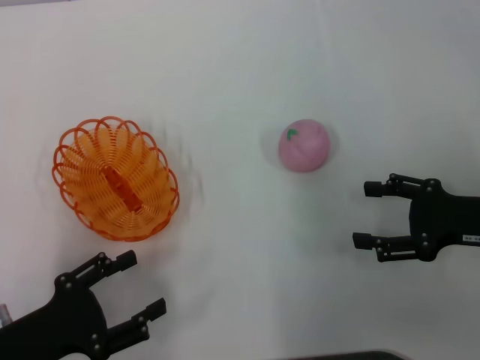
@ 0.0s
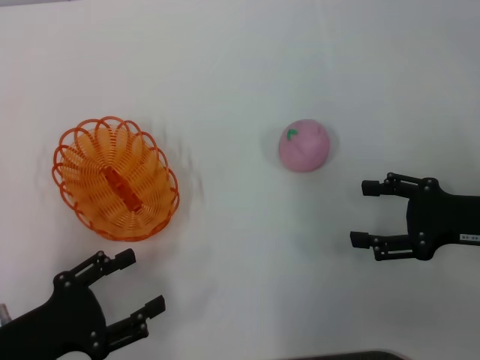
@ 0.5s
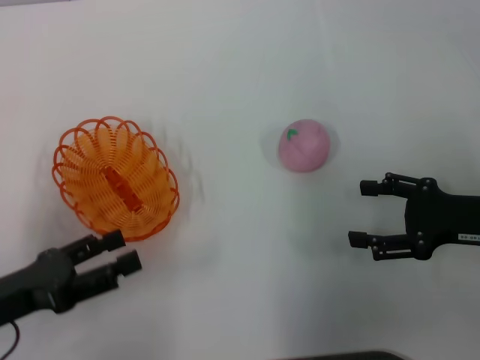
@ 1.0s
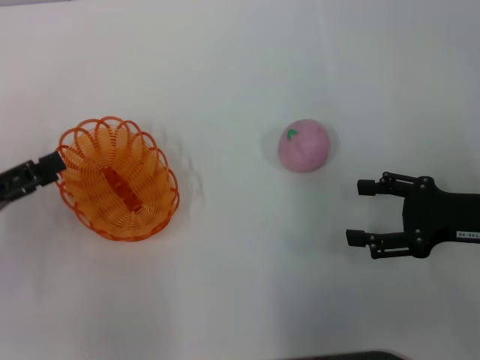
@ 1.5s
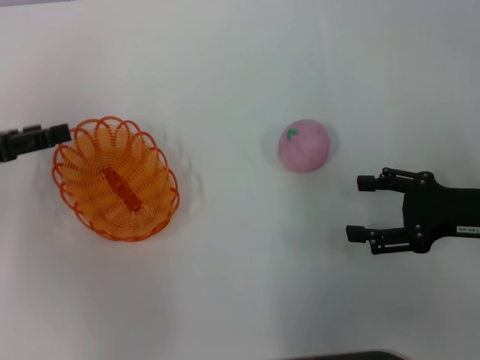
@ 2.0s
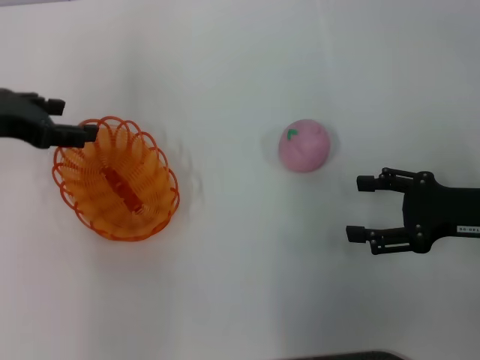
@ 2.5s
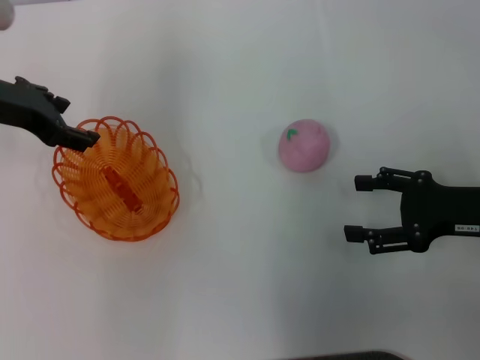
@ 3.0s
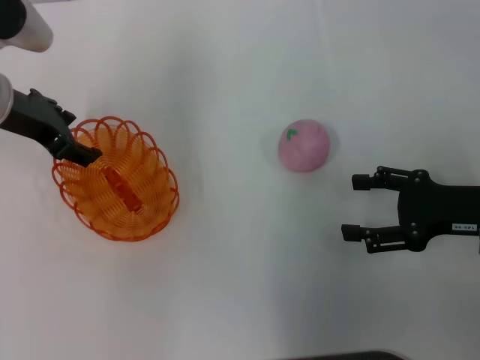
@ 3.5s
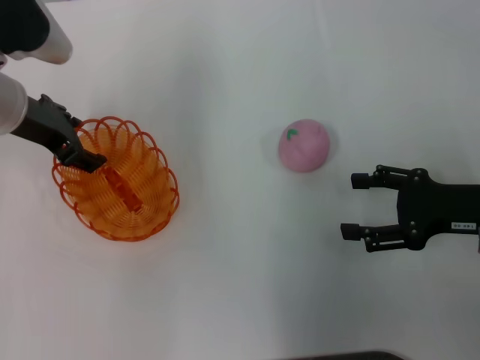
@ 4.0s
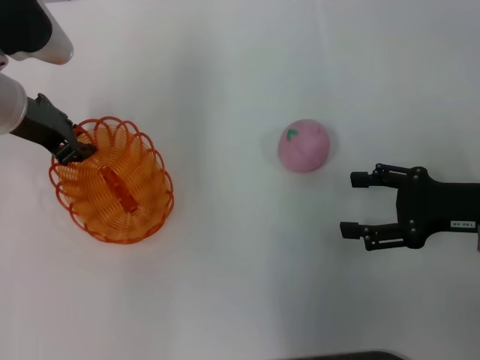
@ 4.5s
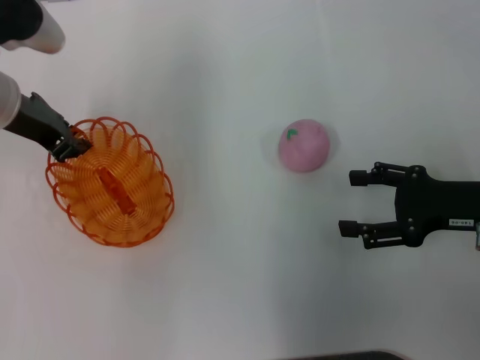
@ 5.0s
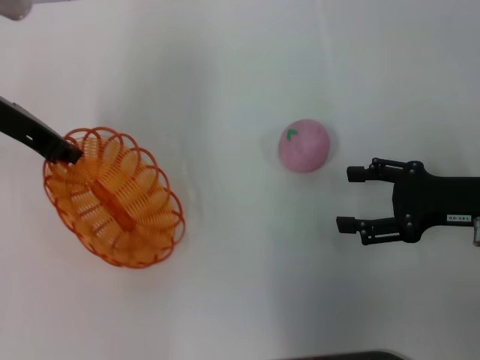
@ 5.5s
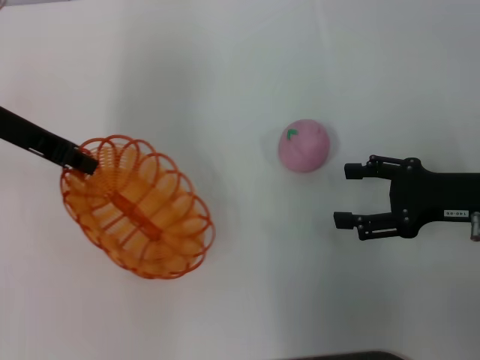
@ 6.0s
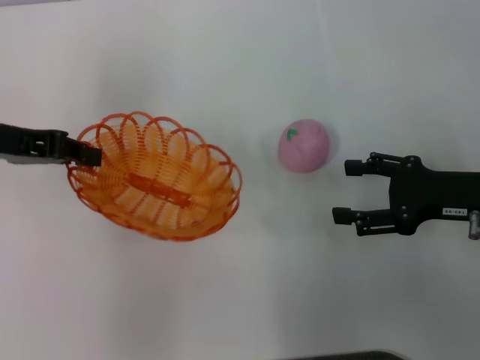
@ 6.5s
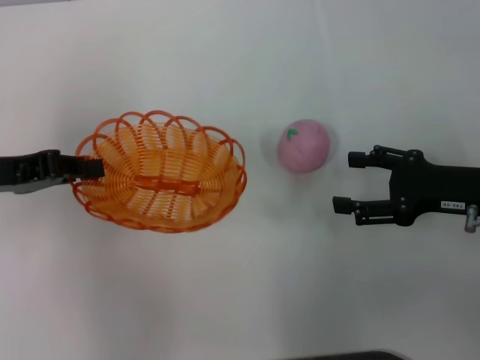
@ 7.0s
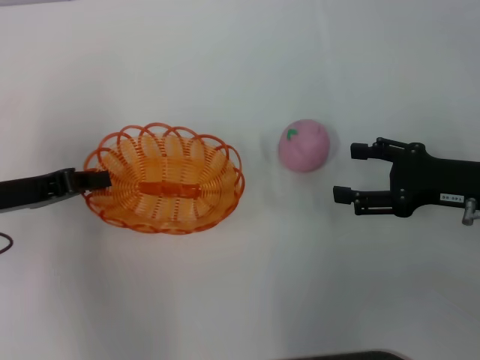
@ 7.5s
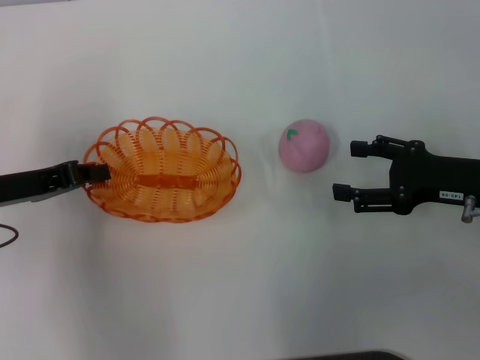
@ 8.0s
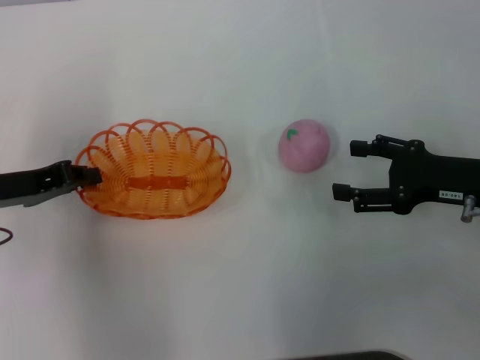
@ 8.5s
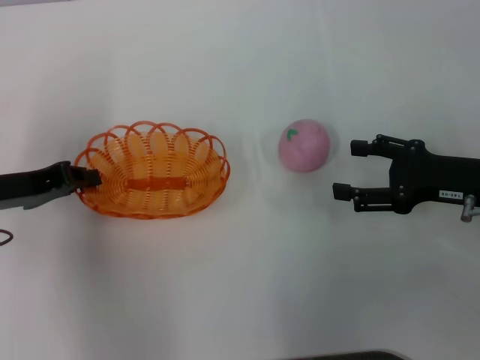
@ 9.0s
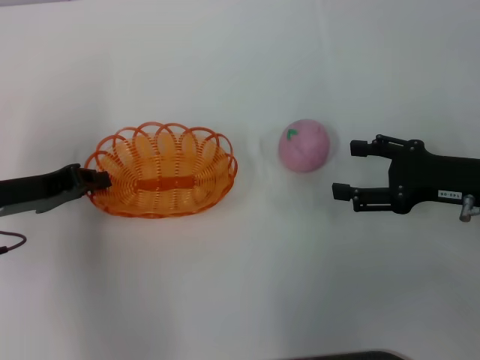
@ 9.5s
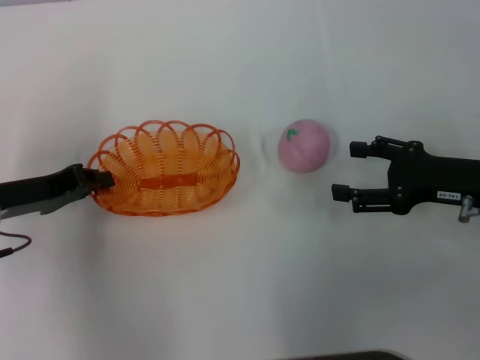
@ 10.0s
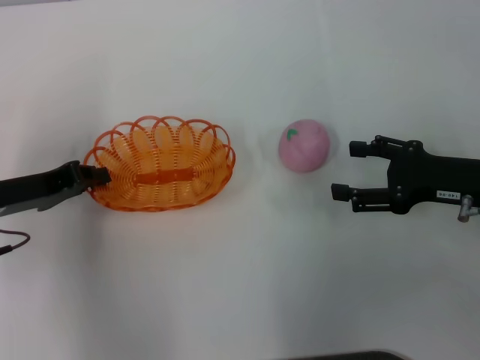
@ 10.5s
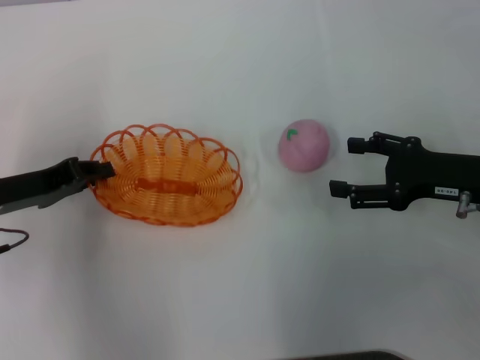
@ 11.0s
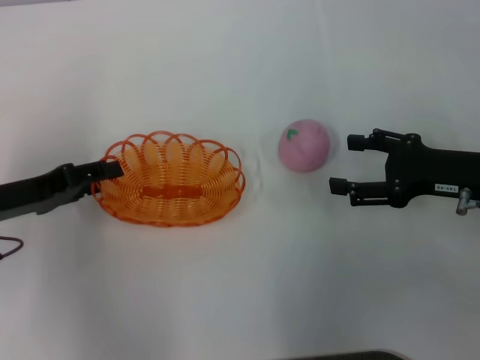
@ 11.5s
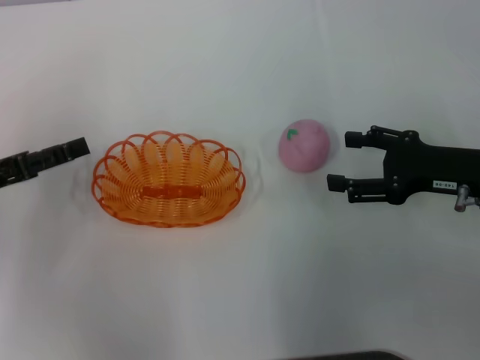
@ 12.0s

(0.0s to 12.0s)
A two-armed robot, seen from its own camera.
Step, 0.0s - 6.0s: Pick up the basket with the left gripper.
0.0s - 2.0s: The left gripper moves forward, upward and to the left, approximately 20 cm.
2.0s - 4.0s: The left gripper is displaced to the right and forward by approximately 15 cm.
4.0s - 6.0s: The left gripper closes up.
6.0s - 8.0s: The left gripper is displaced downward and backward by roughly 10 cm.
8.0s - 10.0s: The grippers stay close to where they were, moving slightly.
10.0s - 12.0s: The left gripper ends up some 5 cm from where it was, and opens its fingers.

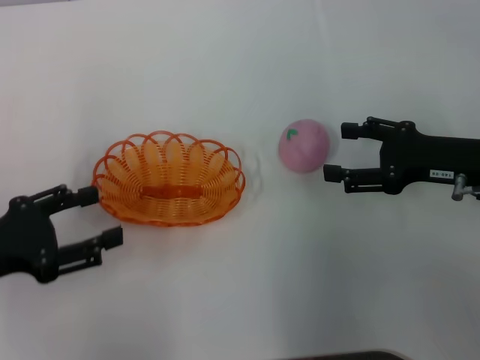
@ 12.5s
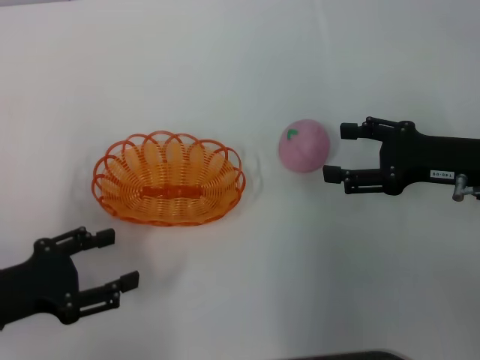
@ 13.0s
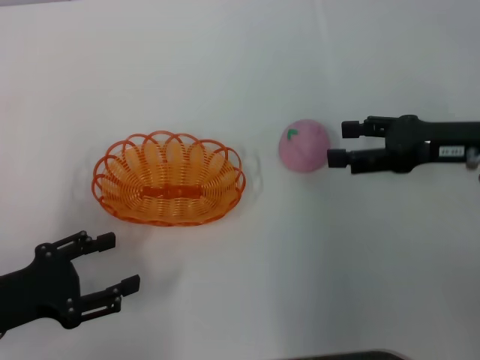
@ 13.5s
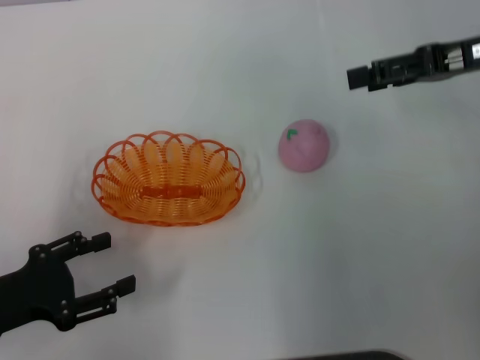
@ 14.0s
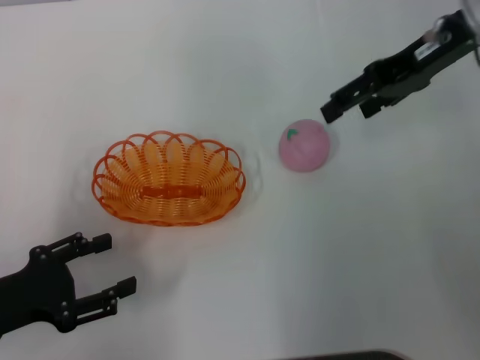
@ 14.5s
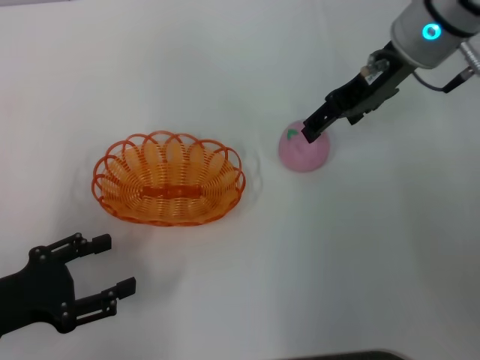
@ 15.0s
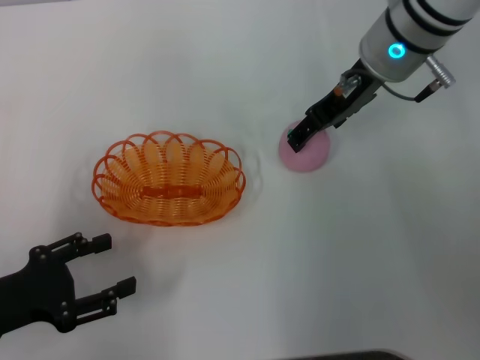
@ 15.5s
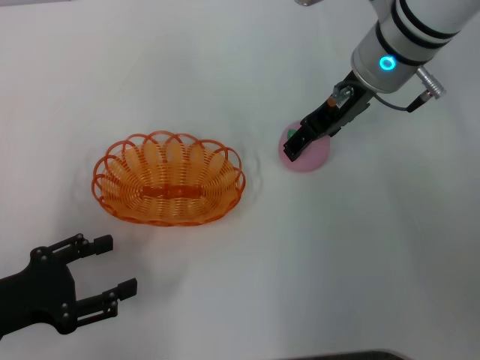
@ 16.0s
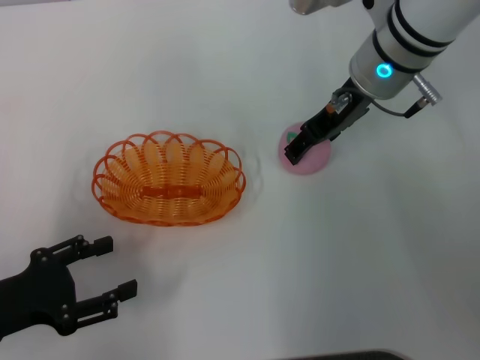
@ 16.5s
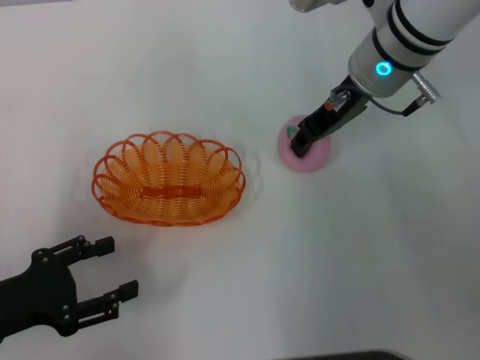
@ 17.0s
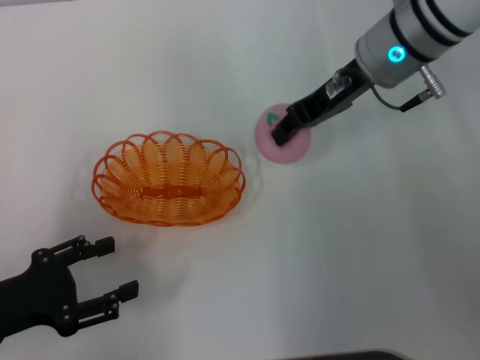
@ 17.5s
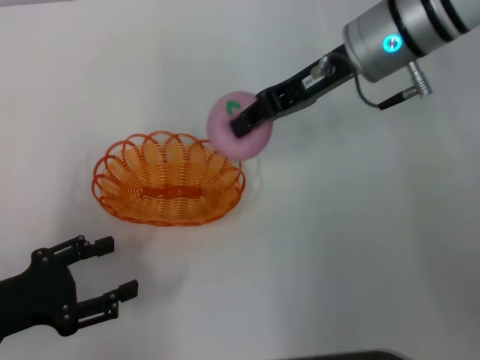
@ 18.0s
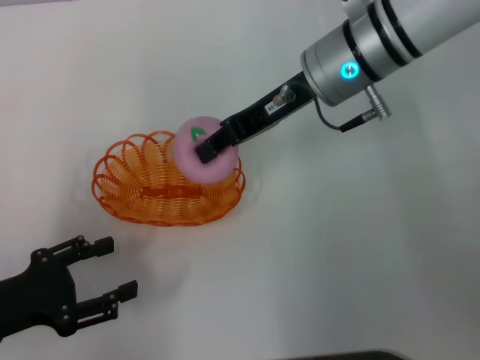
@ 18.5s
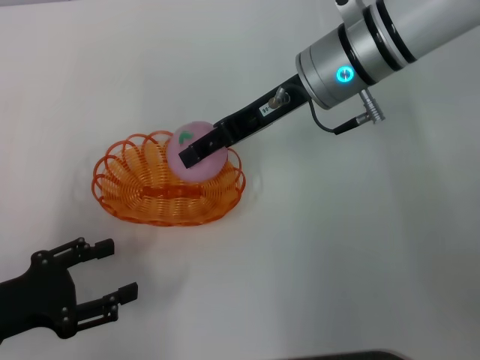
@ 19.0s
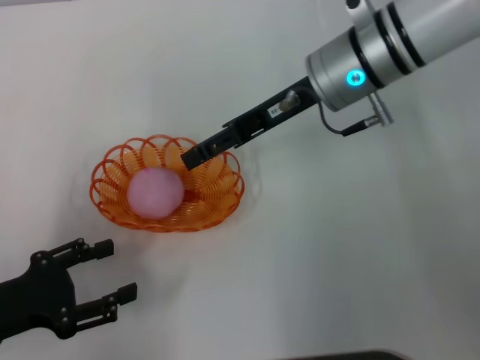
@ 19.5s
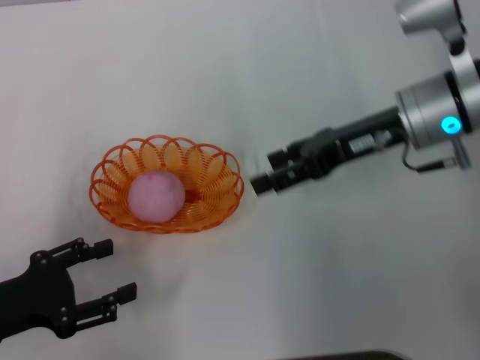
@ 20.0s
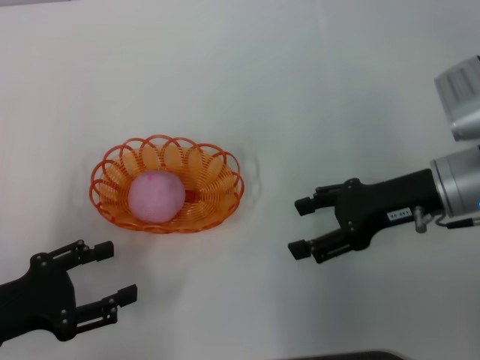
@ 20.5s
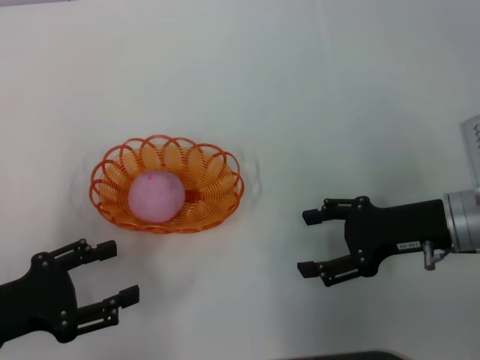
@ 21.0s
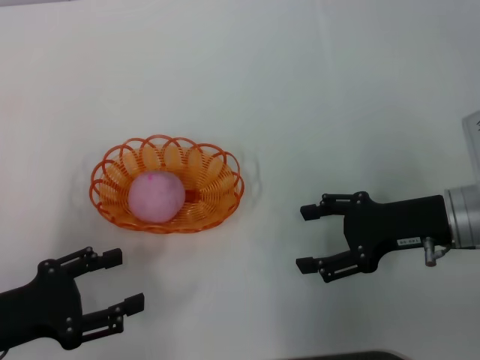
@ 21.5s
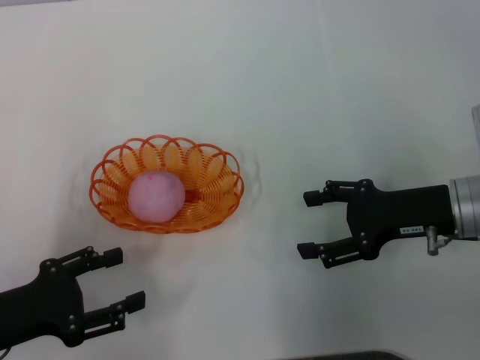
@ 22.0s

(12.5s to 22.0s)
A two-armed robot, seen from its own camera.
Step, 13.5s - 17.5s: Pick up the peach with the right gripper.
Step, 18.0s - 20.0s: Place the peach into the basket with the right gripper.
12.5s - 14.5s: The right gripper moves upward, forward and to the left, roughly 20 cm, while the left gripper moves about 5 cm.
14.5s - 16.5s: The right gripper shifts approximately 10 cm to the left and downward.
16.5s - 18.0s: The right gripper closes its fingers.
18.0s - 20.0s: The right gripper shifts about 5 cm downward and to the right, and opens up.
20.0s - 22.0s: The right gripper moves backward, downward and to the right, about 10 cm.
